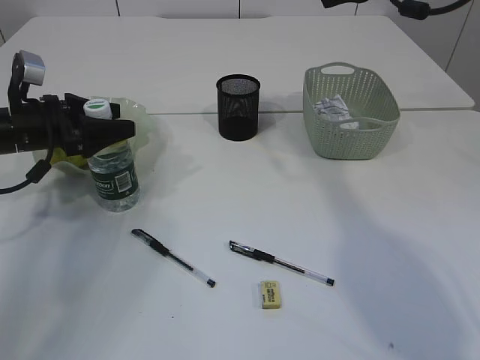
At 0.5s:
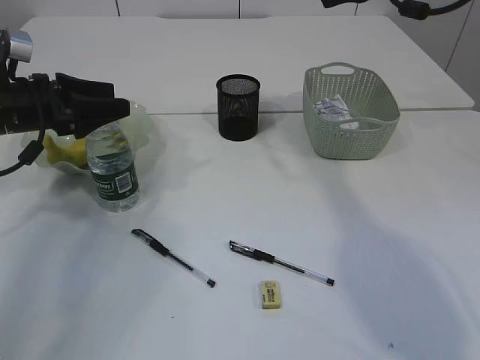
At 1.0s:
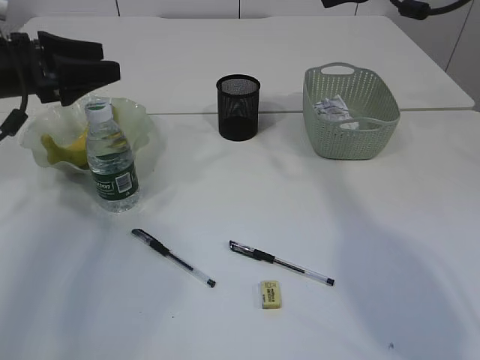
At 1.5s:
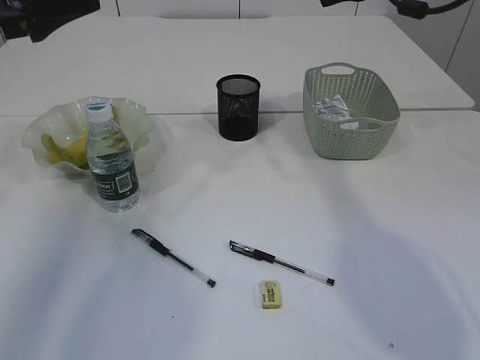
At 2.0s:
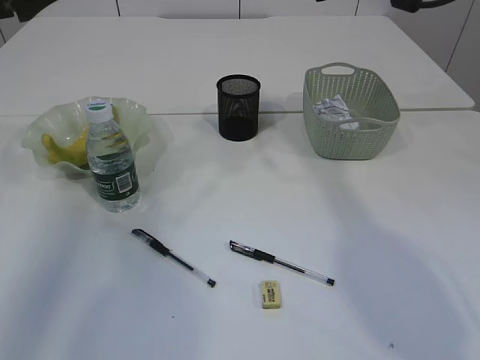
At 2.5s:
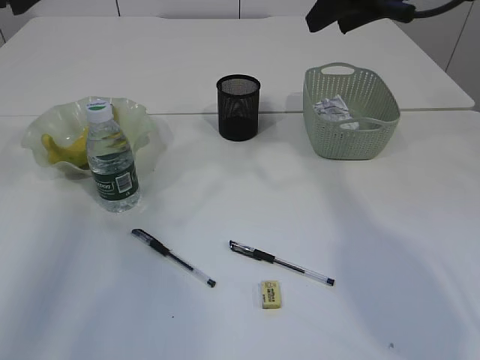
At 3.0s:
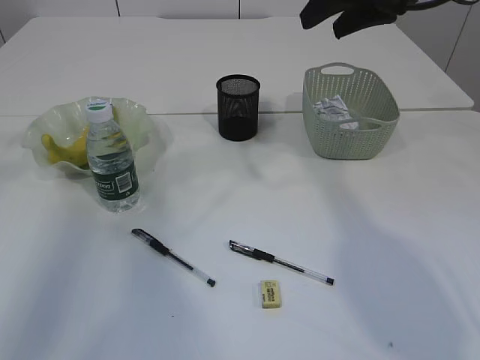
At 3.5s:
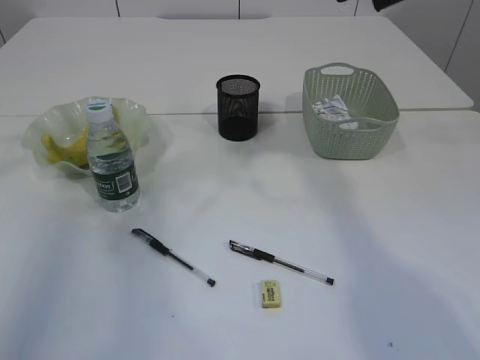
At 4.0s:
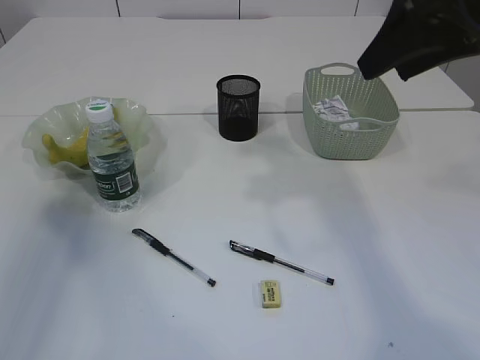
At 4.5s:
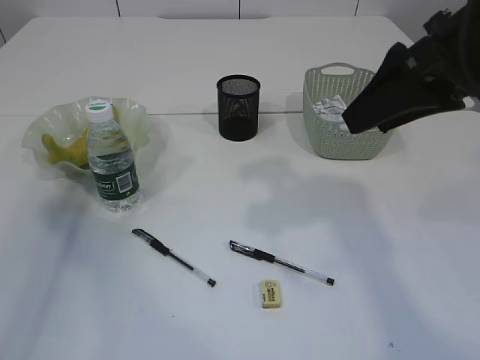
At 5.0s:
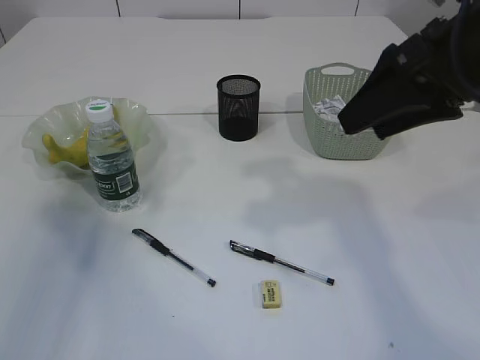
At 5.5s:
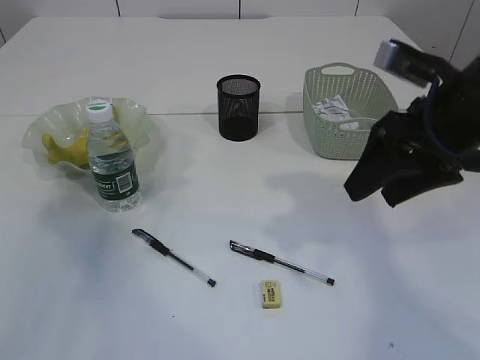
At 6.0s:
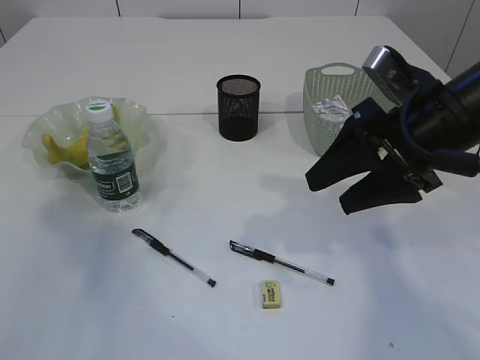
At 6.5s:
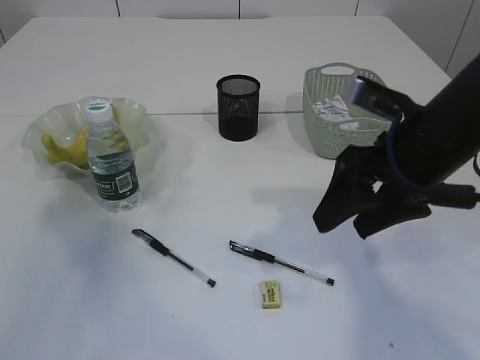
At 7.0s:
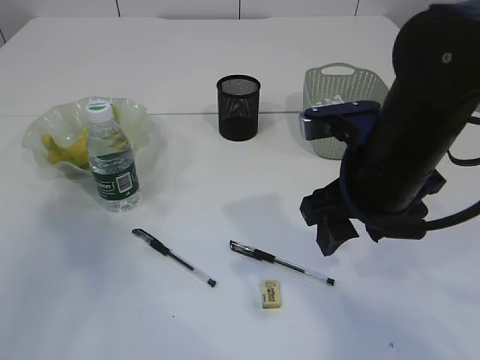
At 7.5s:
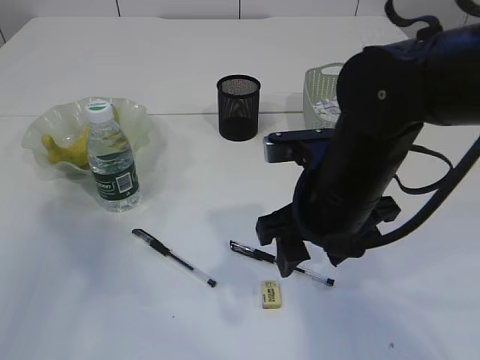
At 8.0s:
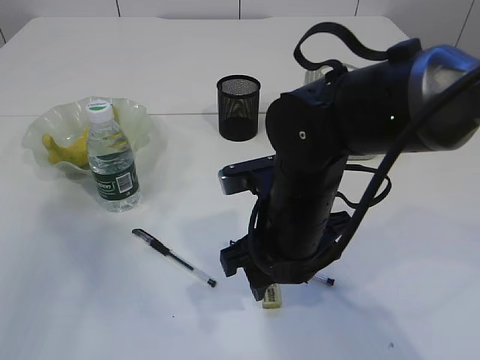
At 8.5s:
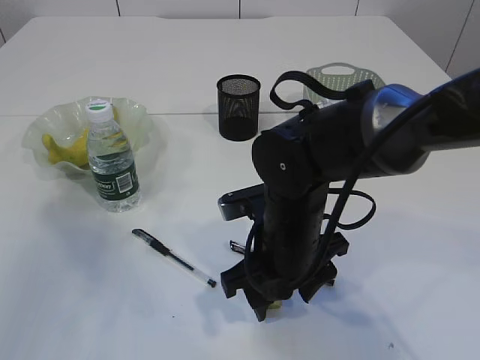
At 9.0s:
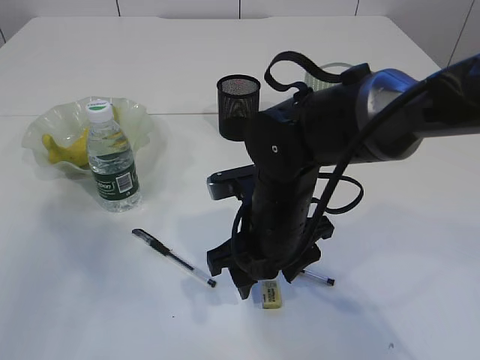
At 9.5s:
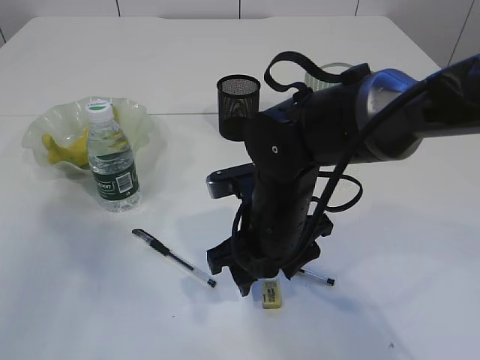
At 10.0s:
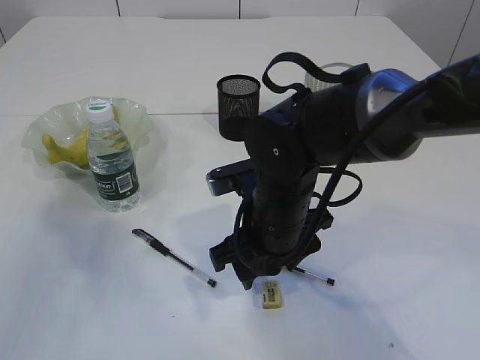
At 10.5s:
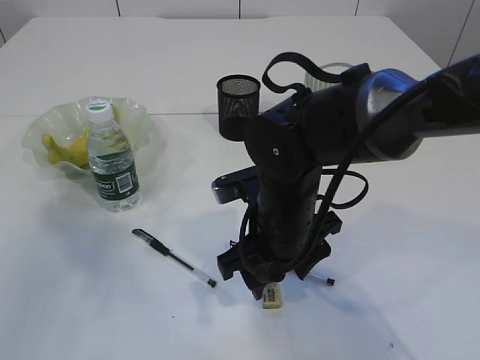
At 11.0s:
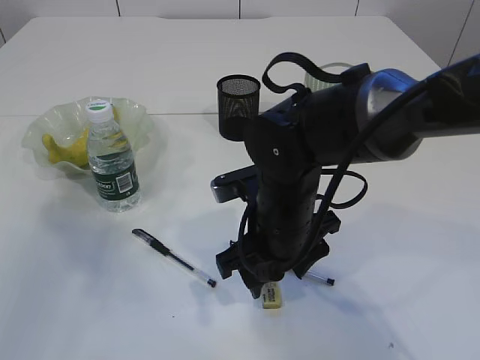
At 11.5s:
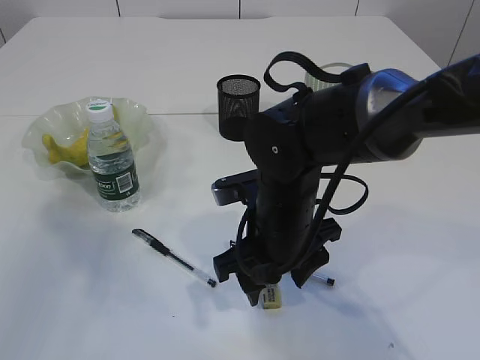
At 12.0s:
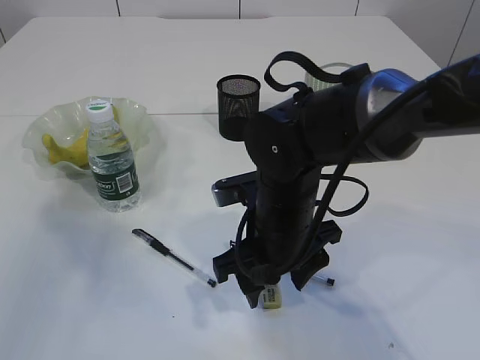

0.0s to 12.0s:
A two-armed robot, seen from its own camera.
0.0s to 2.0s: The left gripper moves upward, approximately 20 cm.
2.0s to 4.0s: The left gripper is displaced to the left and backward by roughly 10 cm; the right gripper is displaced backward by about 15 cm.
4.0s to 6.0s: The right gripper heads downward, covering roughly 10 cm.
6.0s to 8.0s: The right gripper is displaced to the left and downward by roughly 15 cm.
8.0s to 12.0s: The grippers make only small movements.

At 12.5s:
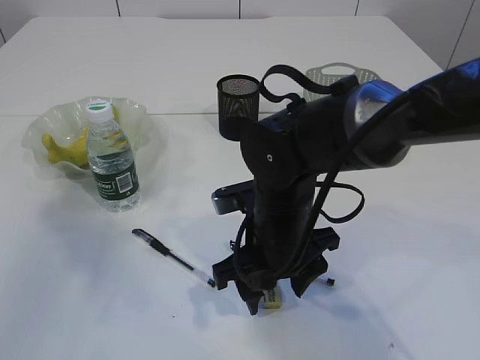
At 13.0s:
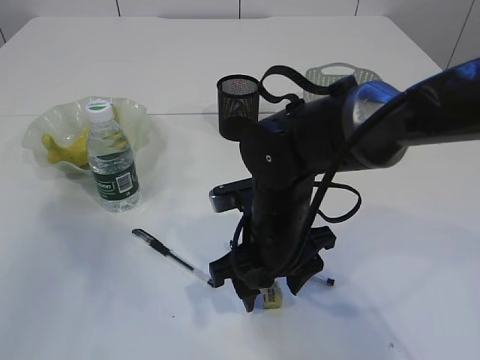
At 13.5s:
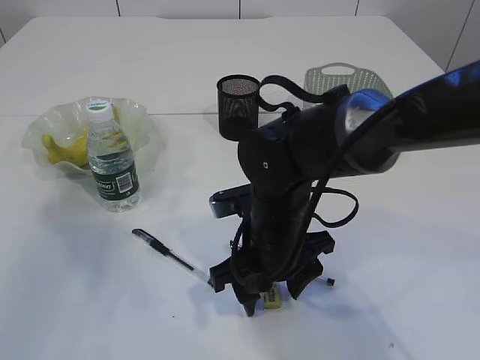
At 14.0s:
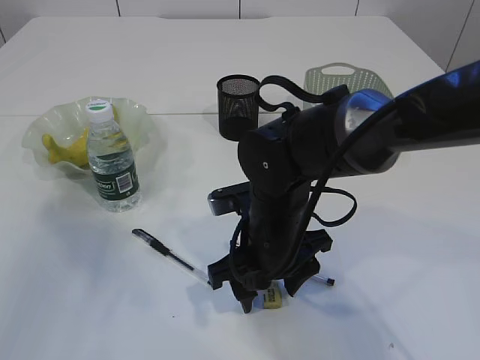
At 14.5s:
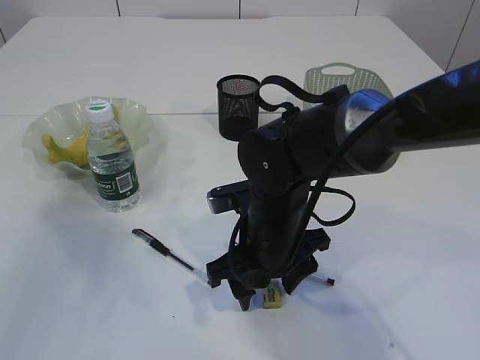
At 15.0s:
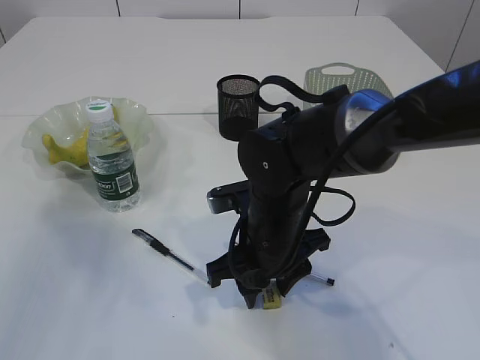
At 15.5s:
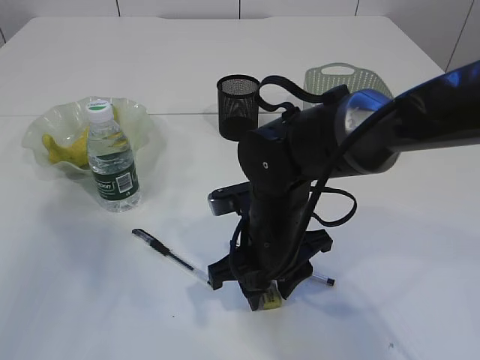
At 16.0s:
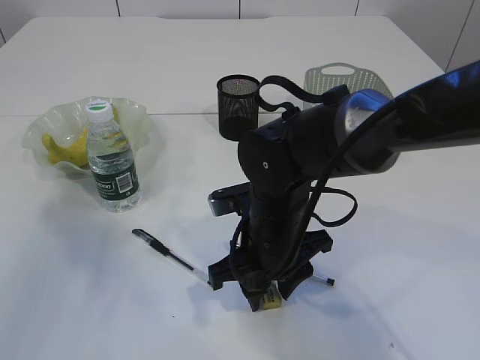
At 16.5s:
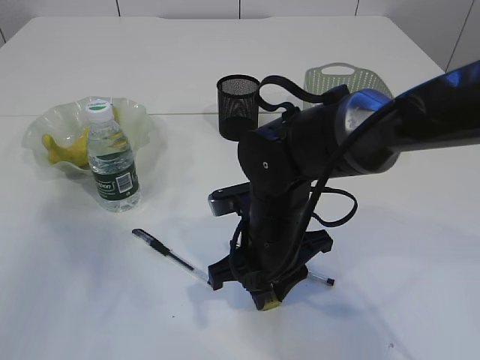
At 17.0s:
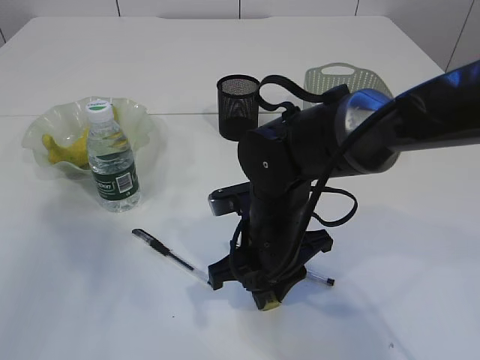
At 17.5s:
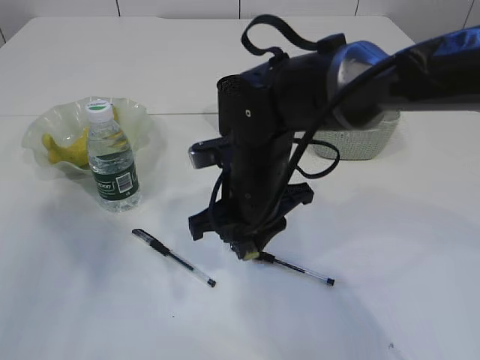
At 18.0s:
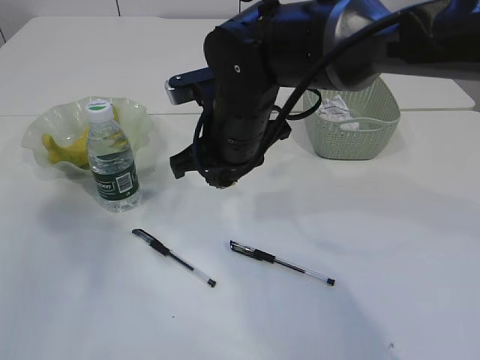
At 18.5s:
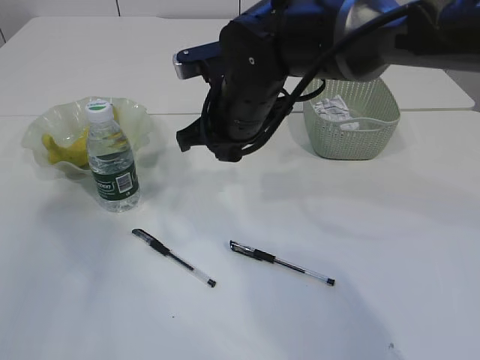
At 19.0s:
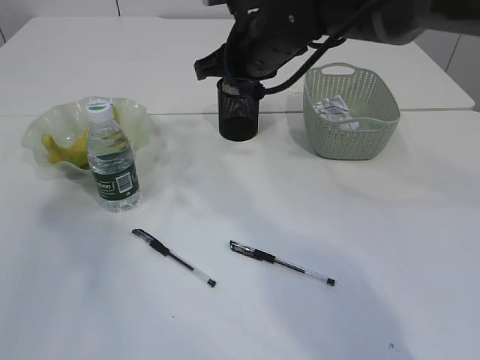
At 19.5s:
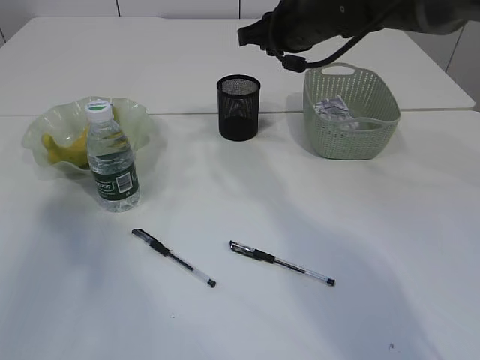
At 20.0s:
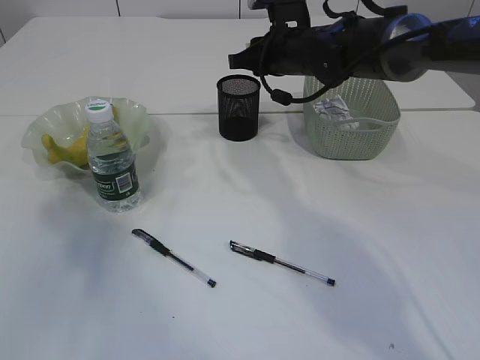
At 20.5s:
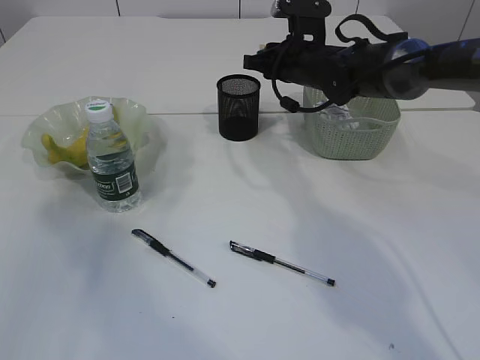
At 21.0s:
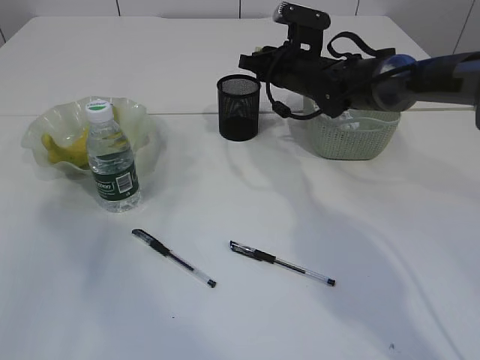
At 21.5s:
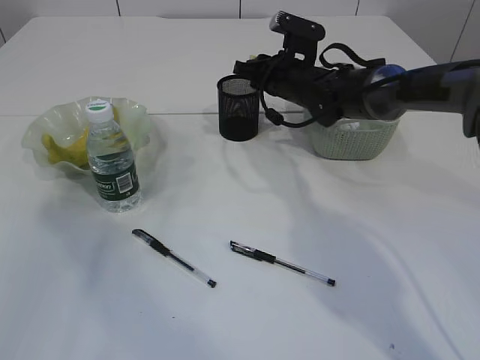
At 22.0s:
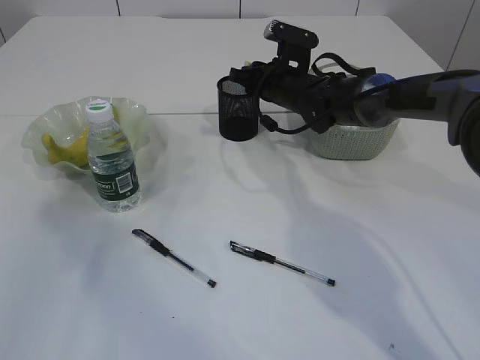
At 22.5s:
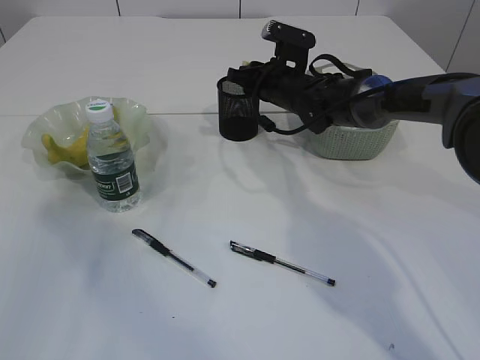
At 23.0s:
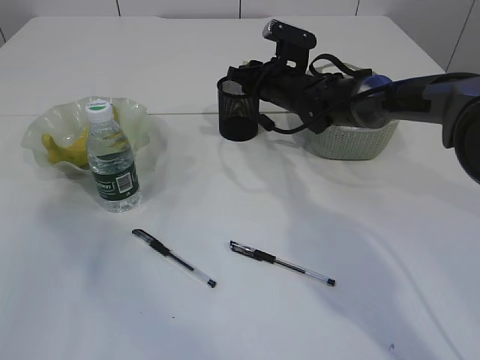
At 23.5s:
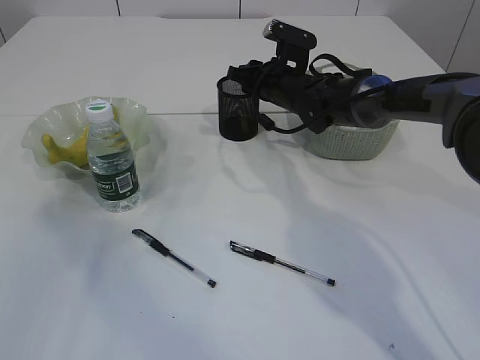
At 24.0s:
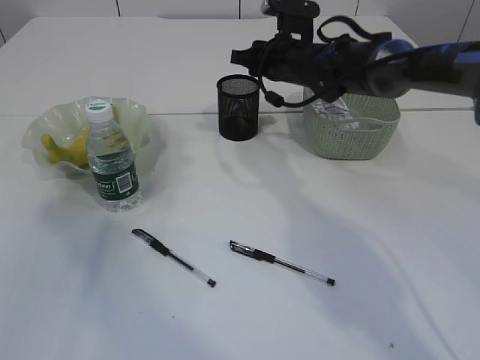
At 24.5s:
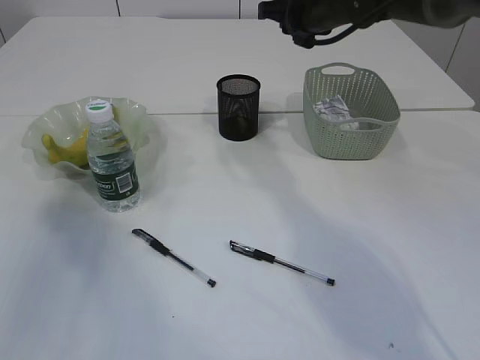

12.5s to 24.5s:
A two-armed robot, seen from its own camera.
Step, 12.5s to 17.0s: Pick up the eraser.
Step, 17.5s to 23.0s: Place the eraser into the pen holder.
12.5s to 14.5s: Both grippers stay about where they are.
14.5s to 16.5s: The right gripper closes its fingers.
16.5s to 18.5s: The right gripper heads upward and forward, covering some 15 cm.
18.5s to 20.5s: The right gripper is displaced forward and to the right by approximately 15 cm.
20.5s to 22.5s: The right gripper shifts by roughly 5 cm.
22.5s to 24.5s: The right gripper shifts about 15 cm upward.

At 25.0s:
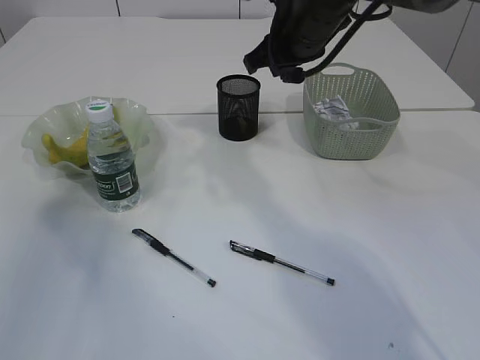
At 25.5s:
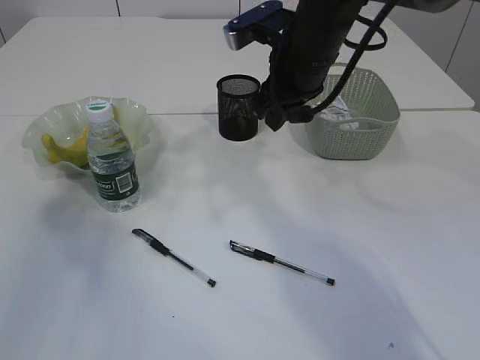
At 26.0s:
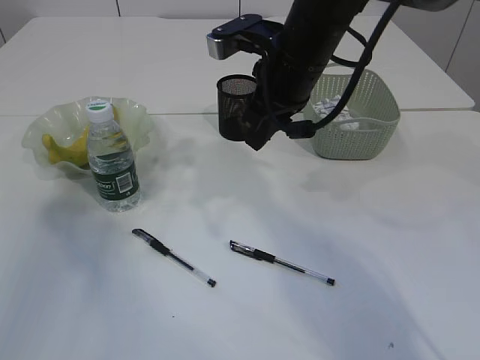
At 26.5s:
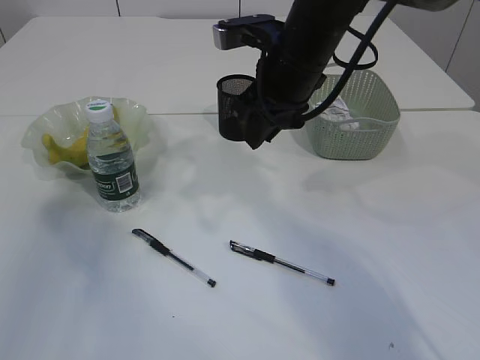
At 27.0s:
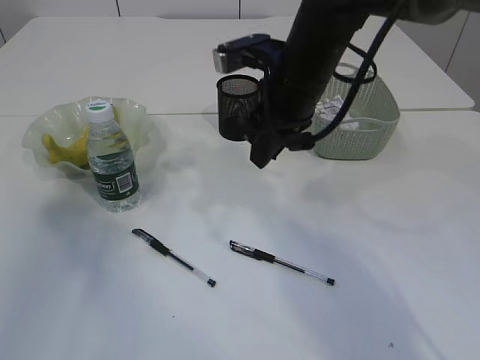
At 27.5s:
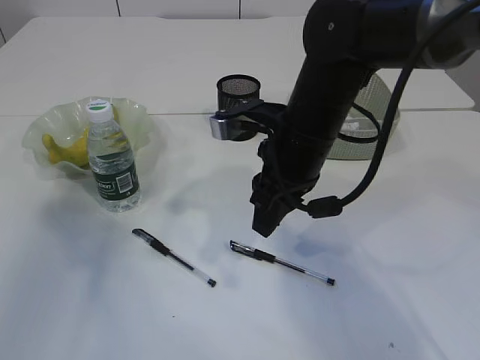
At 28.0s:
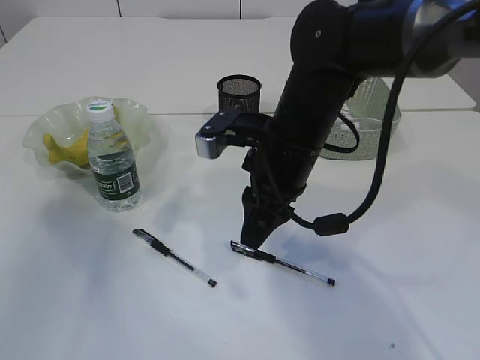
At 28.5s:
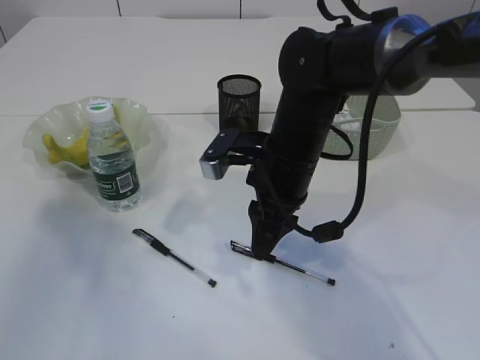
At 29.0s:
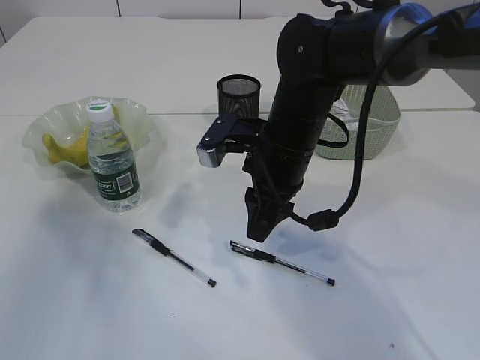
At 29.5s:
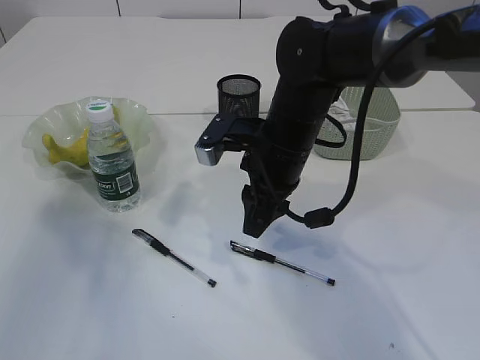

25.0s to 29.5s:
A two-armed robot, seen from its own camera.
25.0s to 27.0s: The right gripper is displaced backward by roughly 5 cm.
27.0s to 29.5s: The right gripper shifts about 5 cm downward.
